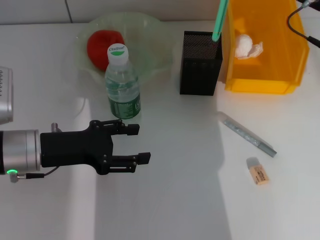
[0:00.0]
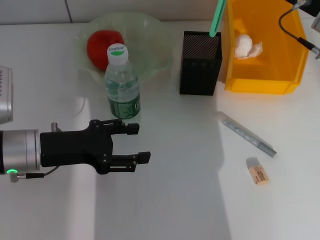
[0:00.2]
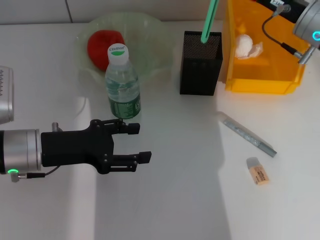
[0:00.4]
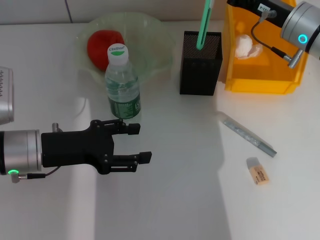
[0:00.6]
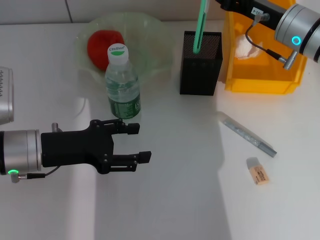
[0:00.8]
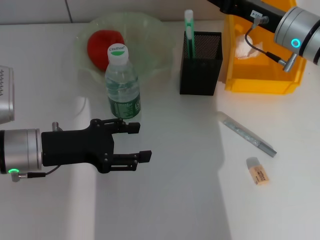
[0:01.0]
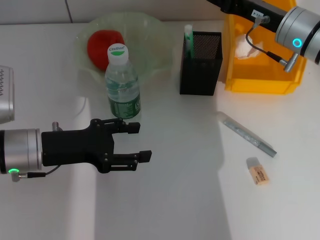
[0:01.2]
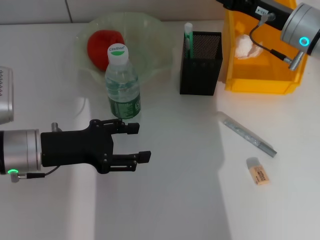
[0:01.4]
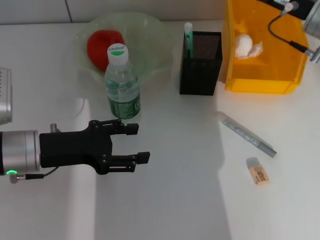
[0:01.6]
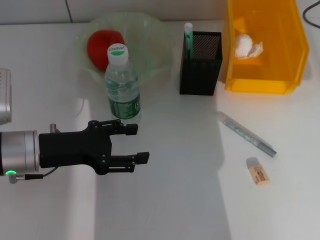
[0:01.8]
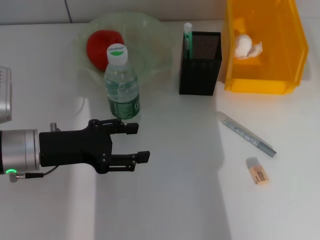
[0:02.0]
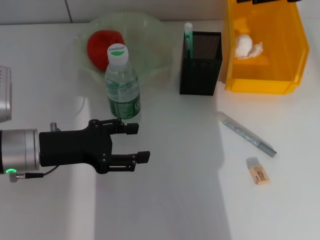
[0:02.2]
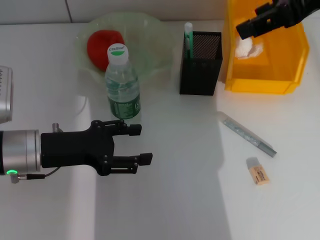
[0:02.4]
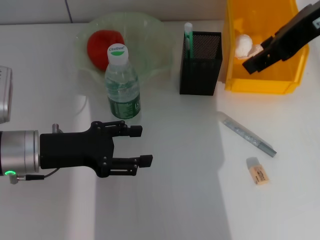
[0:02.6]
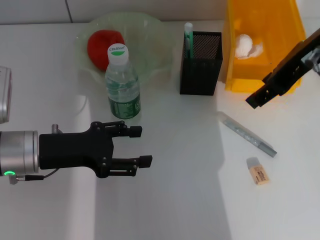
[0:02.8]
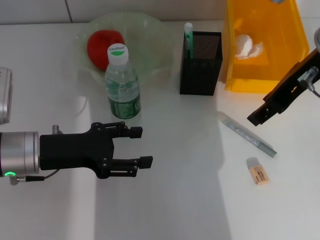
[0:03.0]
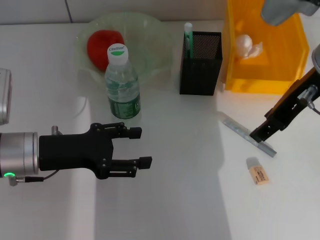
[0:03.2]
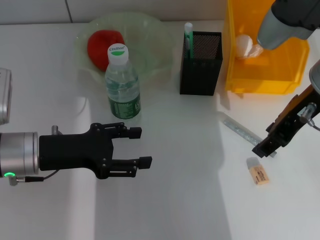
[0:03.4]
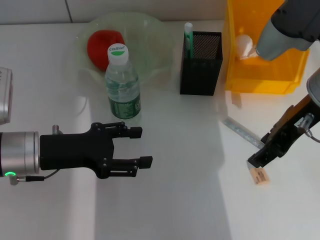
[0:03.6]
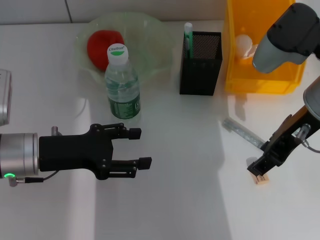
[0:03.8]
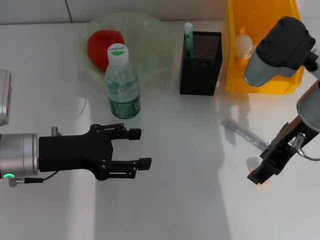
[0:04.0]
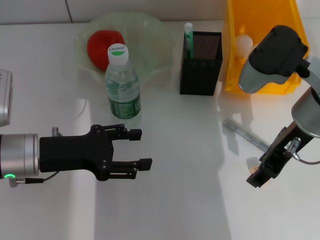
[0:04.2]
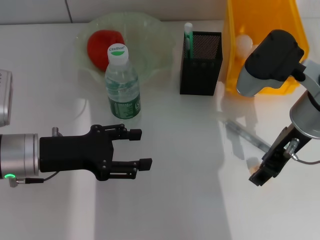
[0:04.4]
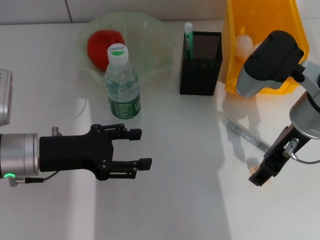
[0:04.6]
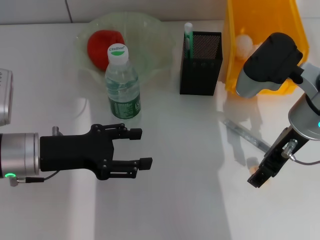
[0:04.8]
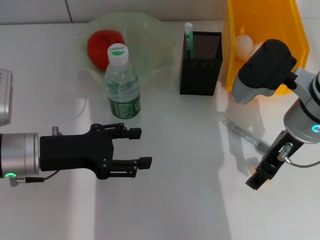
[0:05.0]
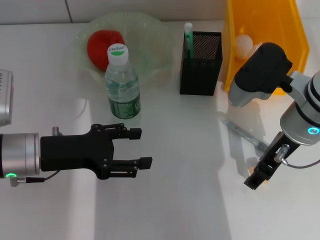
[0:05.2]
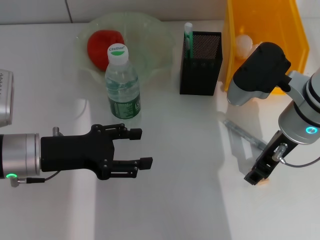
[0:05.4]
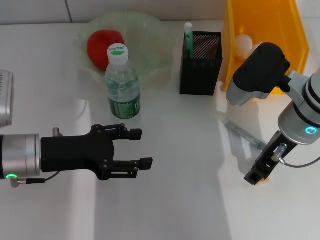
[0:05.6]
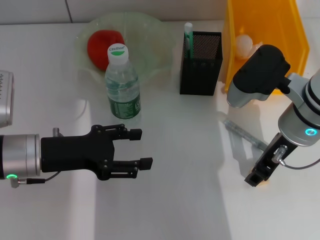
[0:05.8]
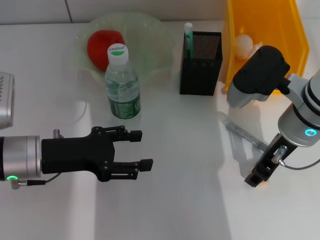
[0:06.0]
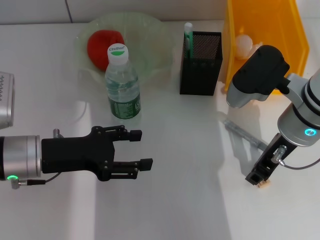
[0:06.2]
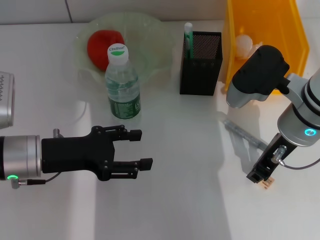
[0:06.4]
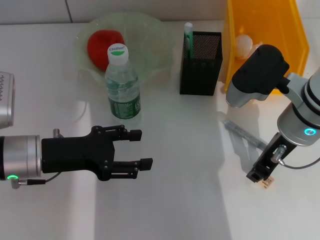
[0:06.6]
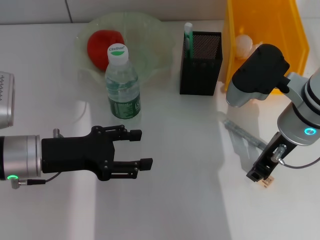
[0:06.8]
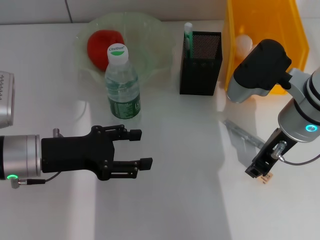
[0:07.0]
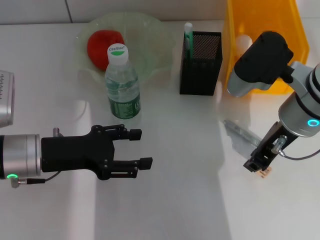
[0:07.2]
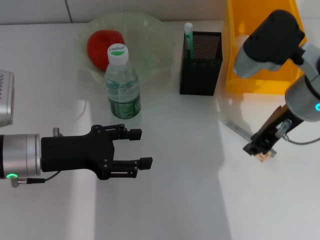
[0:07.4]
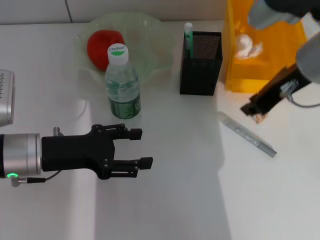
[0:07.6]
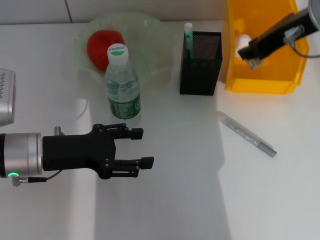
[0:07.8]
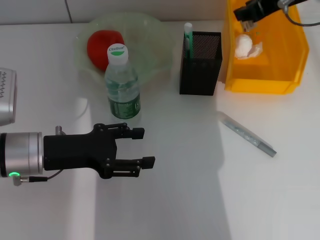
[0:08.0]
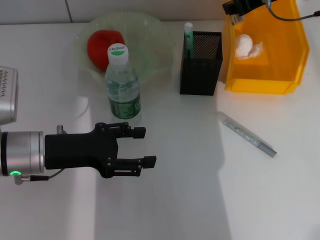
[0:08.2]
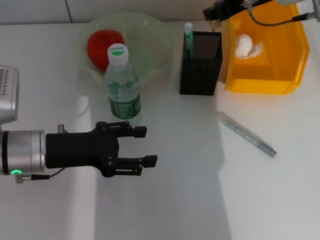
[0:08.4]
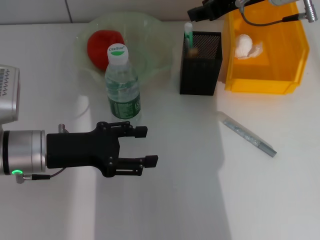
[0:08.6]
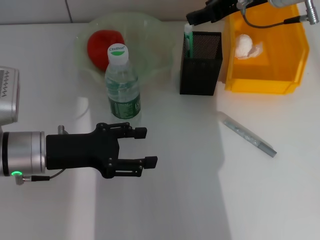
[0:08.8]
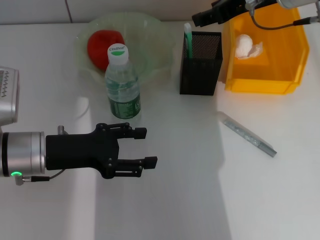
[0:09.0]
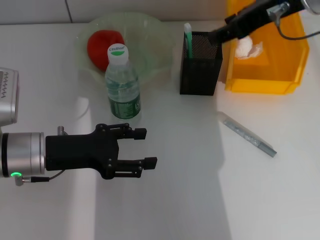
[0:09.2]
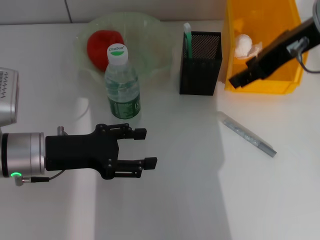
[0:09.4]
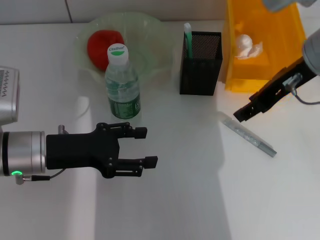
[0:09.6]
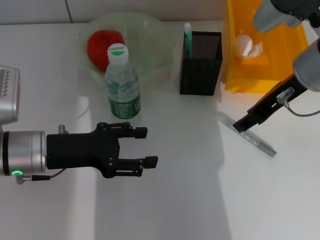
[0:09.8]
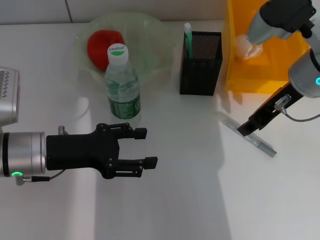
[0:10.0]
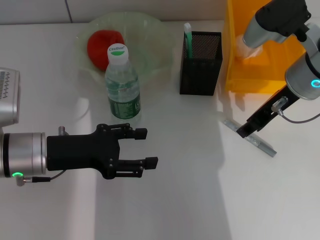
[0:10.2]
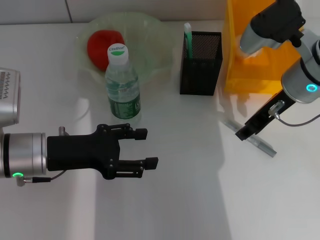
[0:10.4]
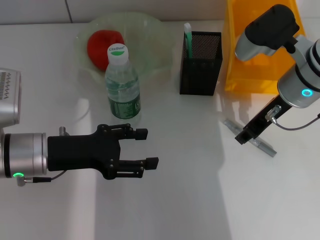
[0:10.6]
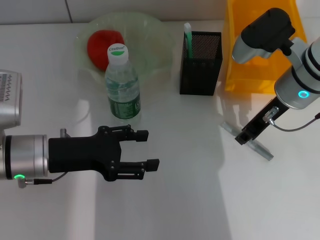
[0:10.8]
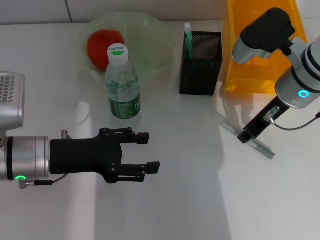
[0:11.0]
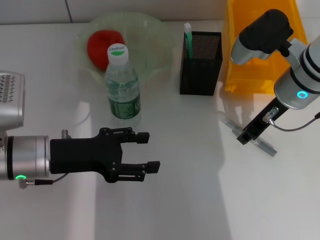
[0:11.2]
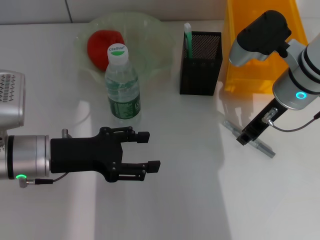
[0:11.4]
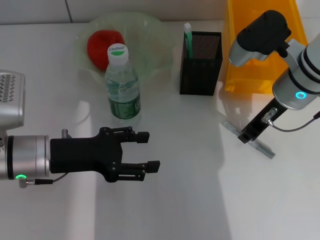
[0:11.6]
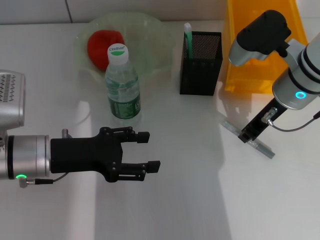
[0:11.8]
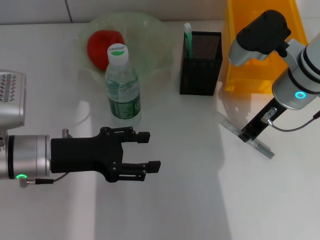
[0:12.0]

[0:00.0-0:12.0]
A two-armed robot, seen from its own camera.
Step, 0:01.4 to 0:06.4: Grab the eraser with the right hand.
Step, 0:06.8 to 0:08.6: Put the eraser into the pen holder with the right hand.
0:00.0 to 0:01.6: The right gripper opens up.
0:01.6 to 0:03.0: The right gripper goes about 10 cm upward.
0:03.0 to 0:04.4: The right gripper moves downward, roughly 10 cm.
0:04.4 to 0:06.0: The grippers make only small movements.
0:06.0 to 0:07.6: The right gripper goes approximately 10 cm upward, and closes.
0:07.6 to 0:09.0: The right gripper goes some 5 cm forward, and opens up.
0:09.0 to 0:10.4: The right gripper moves downward, some 10 cm.
0:10.4 to 0:12.0: There are only small adjustments of the grippers.

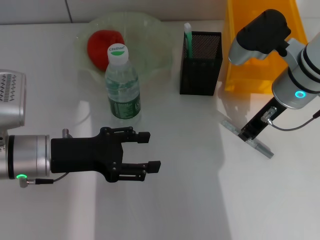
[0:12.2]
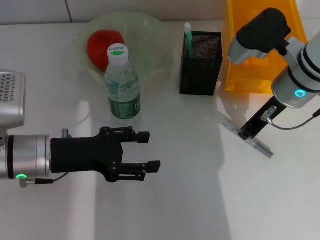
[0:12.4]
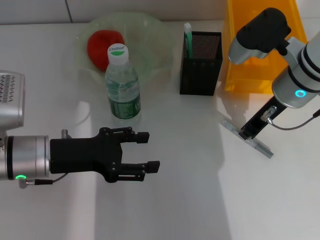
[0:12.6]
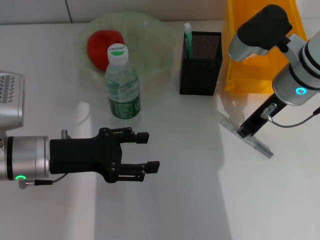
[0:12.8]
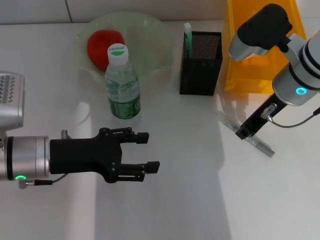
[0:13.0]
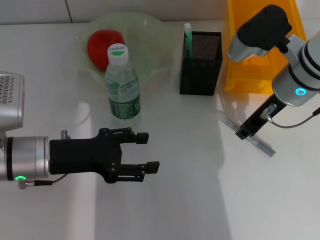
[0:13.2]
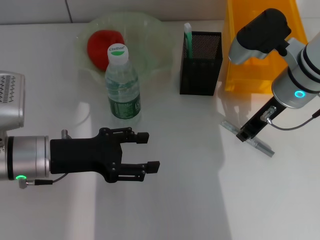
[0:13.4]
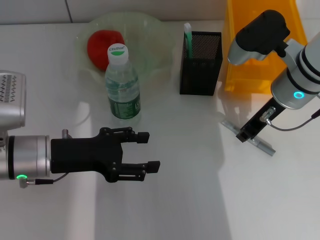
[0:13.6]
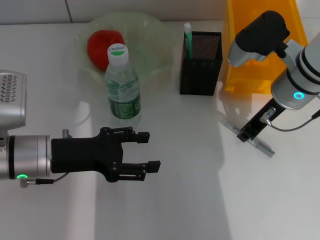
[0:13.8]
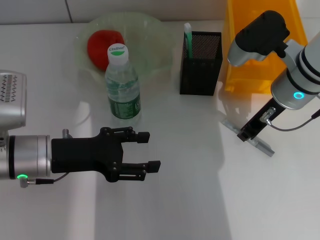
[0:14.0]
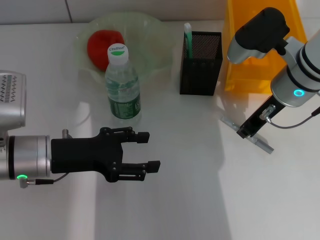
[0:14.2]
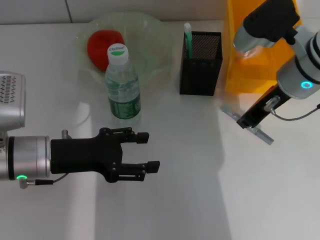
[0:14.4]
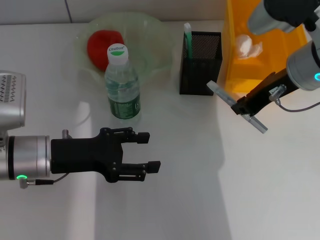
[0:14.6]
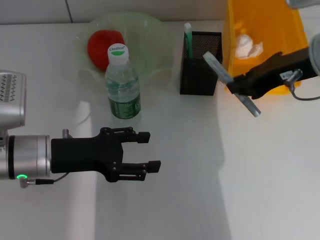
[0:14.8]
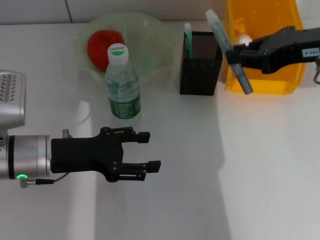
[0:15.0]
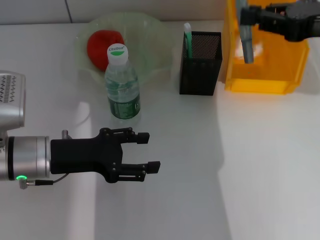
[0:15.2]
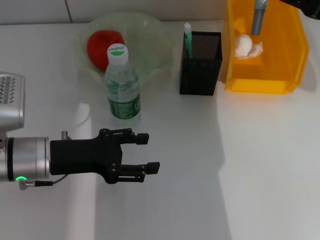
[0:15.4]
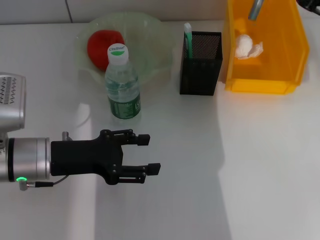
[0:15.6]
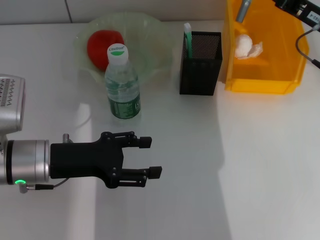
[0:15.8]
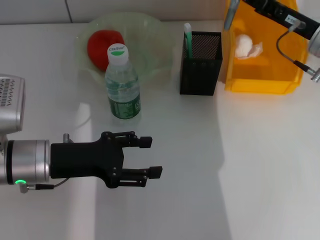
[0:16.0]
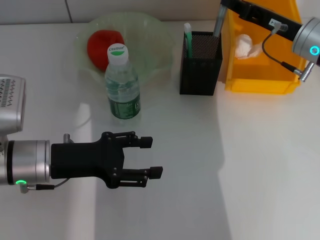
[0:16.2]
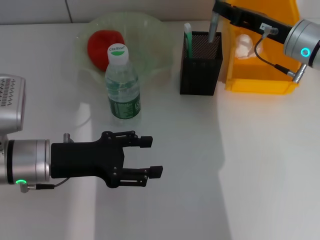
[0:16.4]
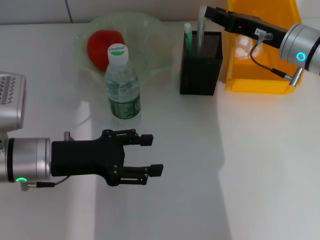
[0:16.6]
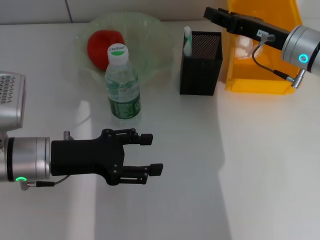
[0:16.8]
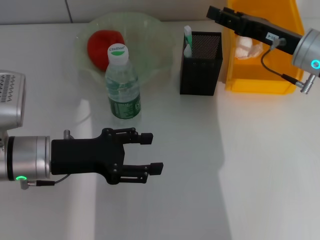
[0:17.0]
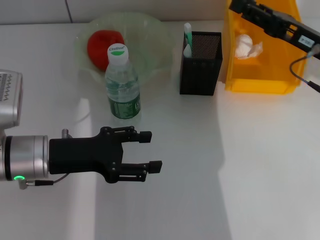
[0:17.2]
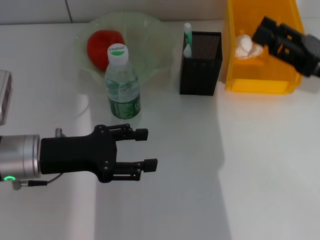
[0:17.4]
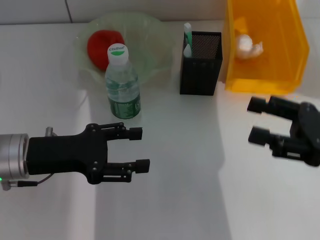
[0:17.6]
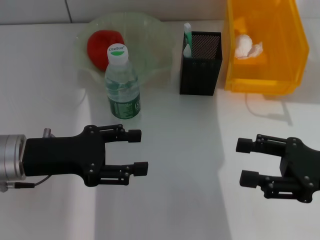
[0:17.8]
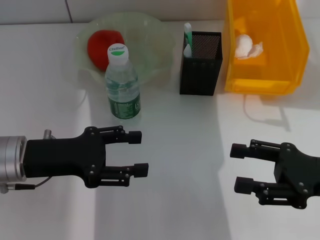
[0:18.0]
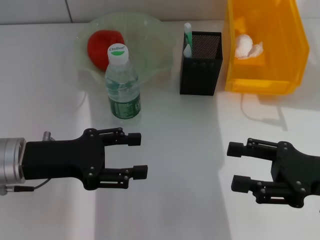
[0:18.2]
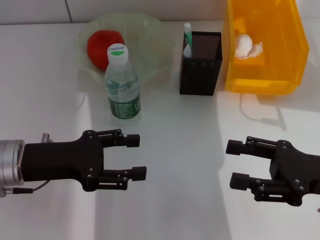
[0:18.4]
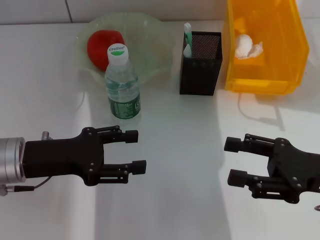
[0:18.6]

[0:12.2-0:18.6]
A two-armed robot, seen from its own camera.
Step, 0:13.8 to 0:16.8: Place the gray glue into the pen holder with the right hand.
0:12.2 to 0:13.8: Both grippers stay about where they are.
0:13.8 to 0:15.4: The right gripper heads to the right and upward, covering roughly 15 cm.
0:15.4 to 0:17.0: The right gripper is displaced downward, forward and to the left by roughly 10 cm, and opens.
0:17.0 to 0:18.6: The right gripper heads backward, covering some 15 cm, and opens.
